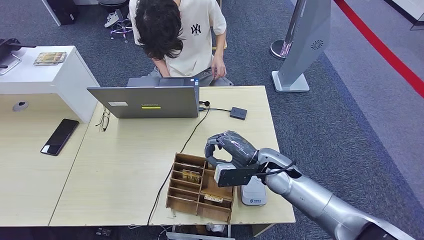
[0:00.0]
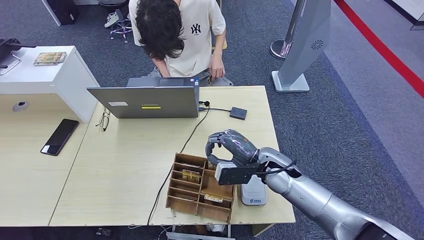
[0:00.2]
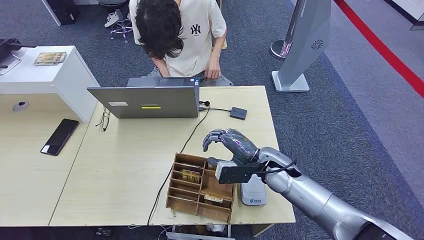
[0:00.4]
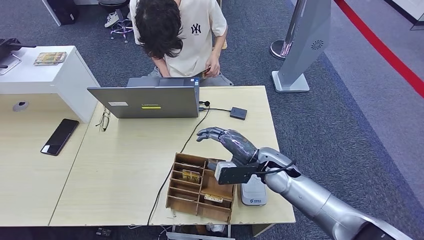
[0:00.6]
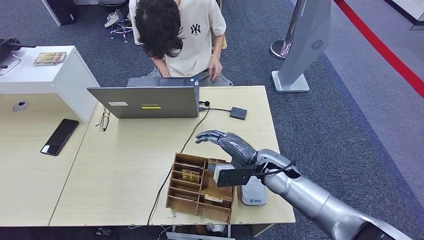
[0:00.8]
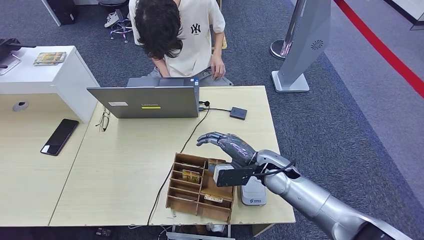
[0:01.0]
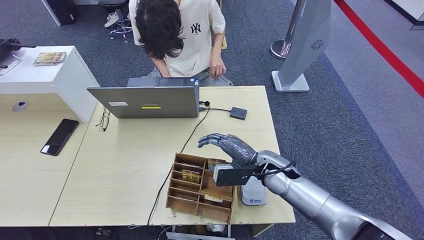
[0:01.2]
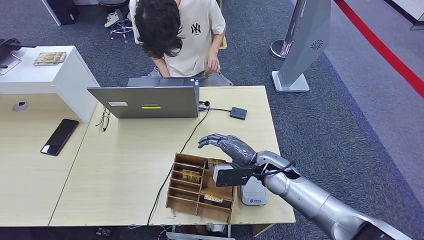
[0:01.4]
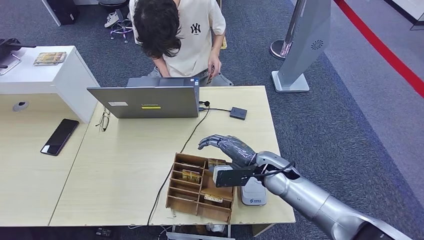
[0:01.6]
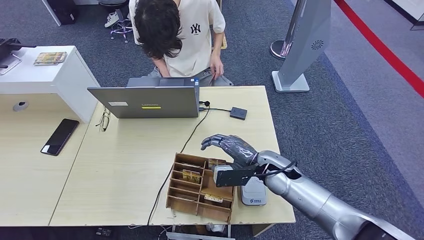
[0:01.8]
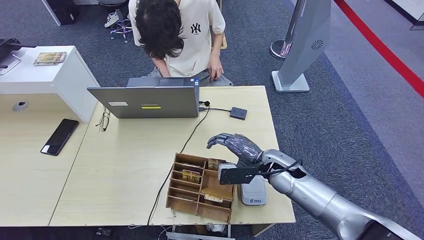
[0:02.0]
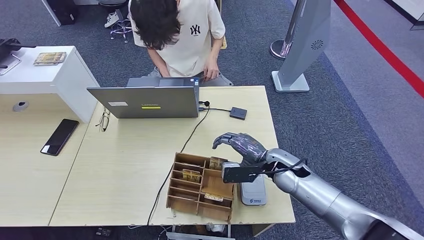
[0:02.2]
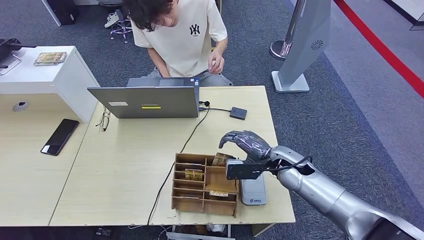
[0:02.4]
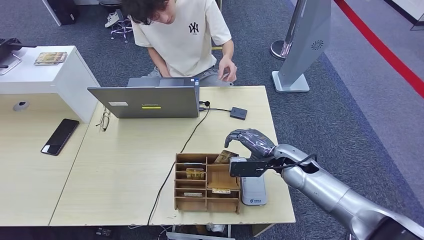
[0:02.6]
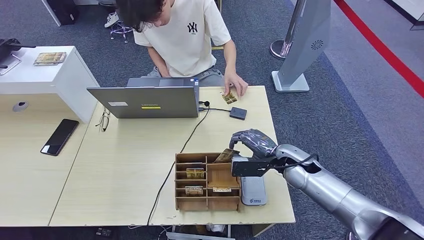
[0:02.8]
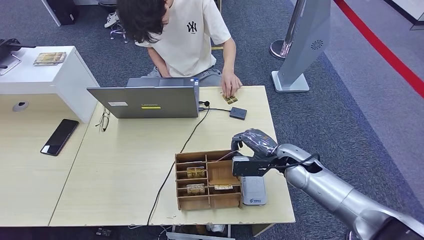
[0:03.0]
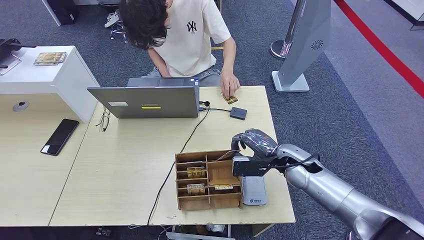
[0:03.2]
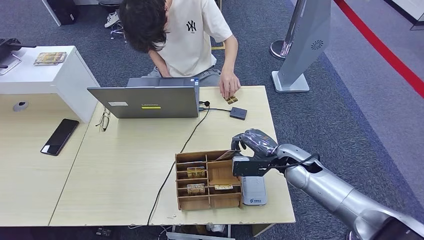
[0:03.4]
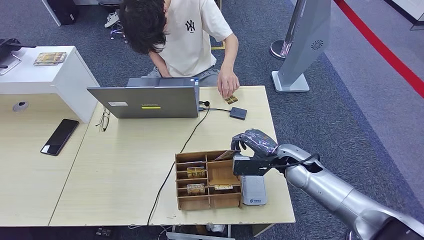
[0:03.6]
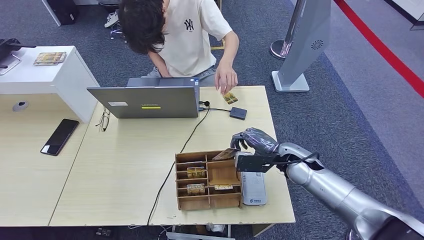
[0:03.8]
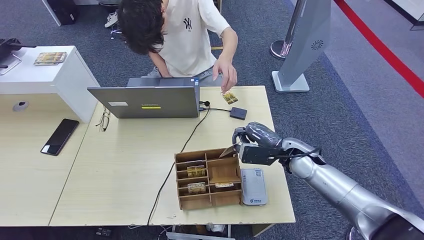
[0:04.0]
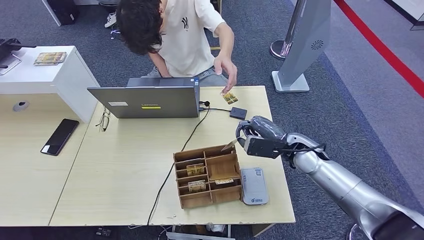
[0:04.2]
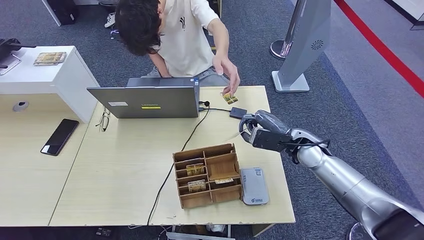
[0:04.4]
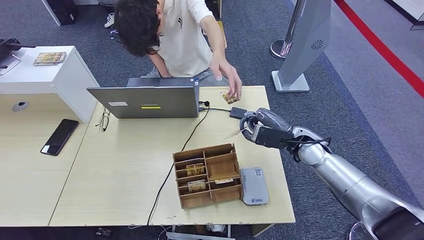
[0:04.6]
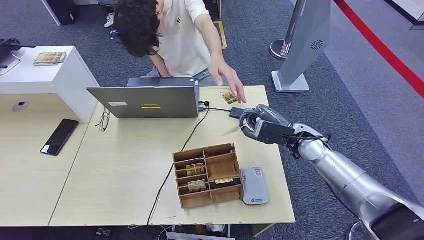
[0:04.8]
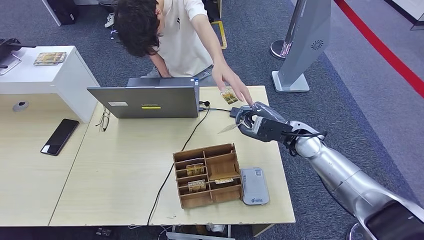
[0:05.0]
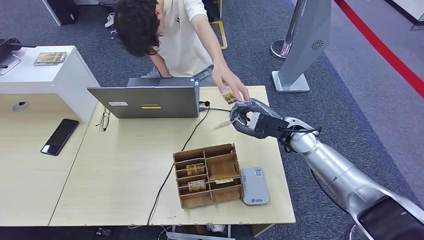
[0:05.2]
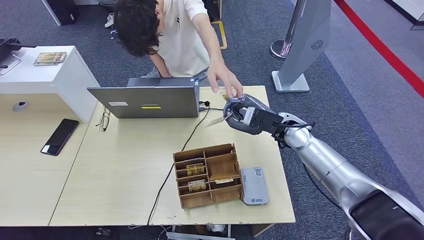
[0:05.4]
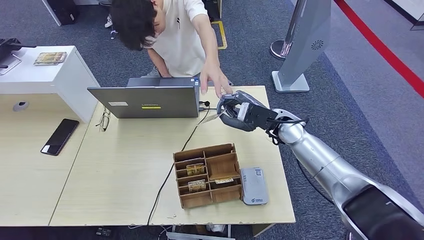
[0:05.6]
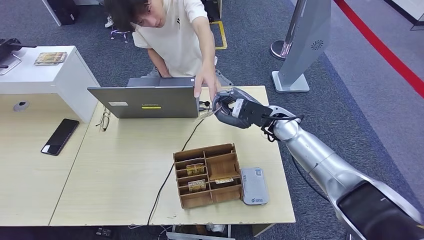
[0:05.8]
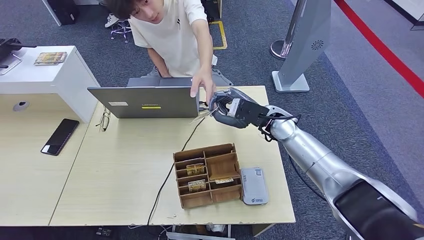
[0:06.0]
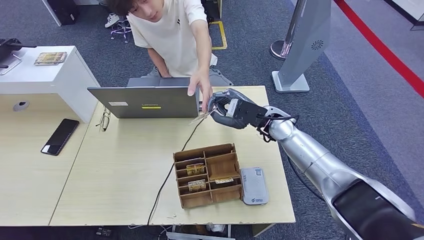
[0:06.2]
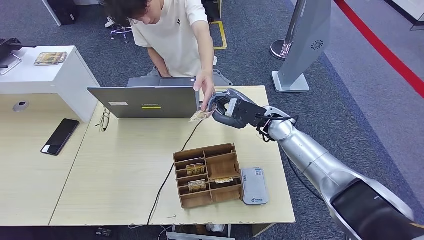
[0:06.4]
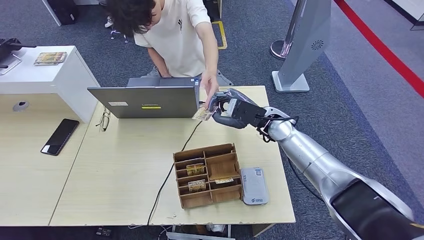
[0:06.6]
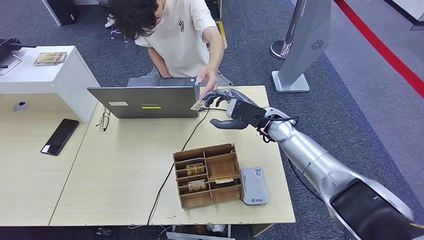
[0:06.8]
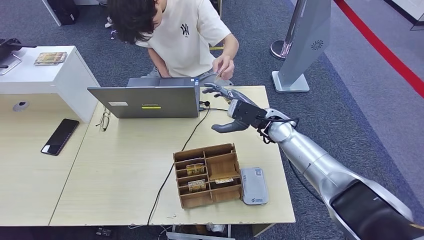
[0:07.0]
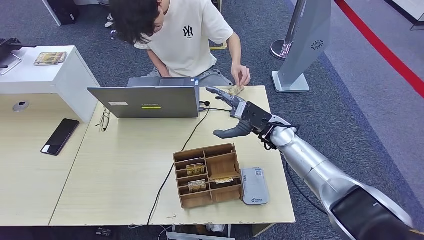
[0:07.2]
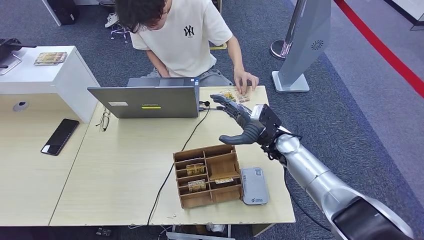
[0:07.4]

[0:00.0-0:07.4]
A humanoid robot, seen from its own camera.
Step, 0:02.4 to 0:05.0: Pick up the room key from the key card box.
Step, 0:05.2 to 0:07.4: Hand the room key to the person.
0:00.0 to 0:01.4: There are only small adjustments of the hands.
0:01.4 to 0:03.0: The right hand shifts approximately 5 cm to the right.
0:03.0 to 0:04.4: The right hand ends up about 5 cm from where it was.
0:04.4 to 0:06.0: The right hand heads to the left and forward, covering approximately 10 cm.
0:06.0 to 0:07.4: The right hand heads downward, covering roughly 5 cm.

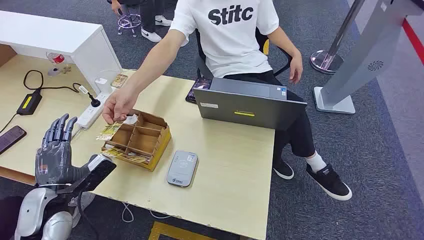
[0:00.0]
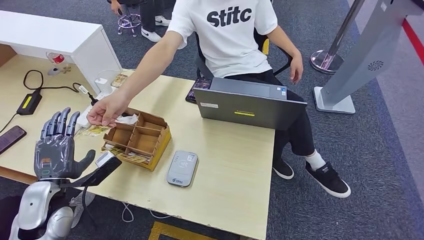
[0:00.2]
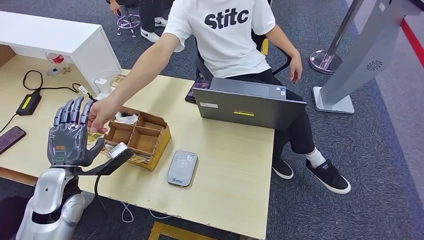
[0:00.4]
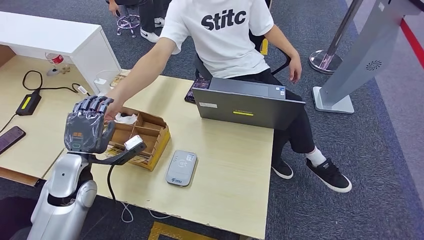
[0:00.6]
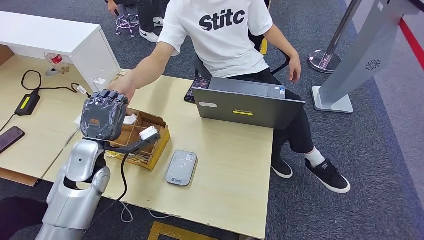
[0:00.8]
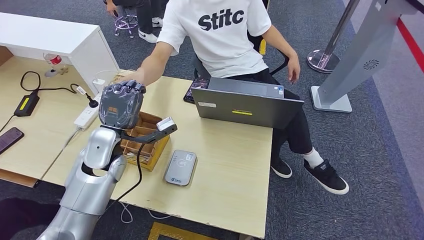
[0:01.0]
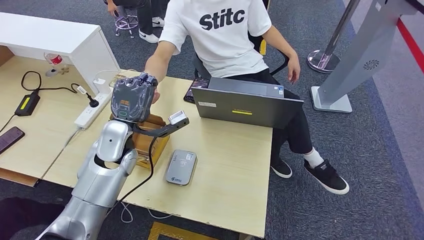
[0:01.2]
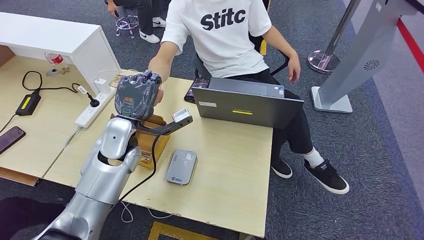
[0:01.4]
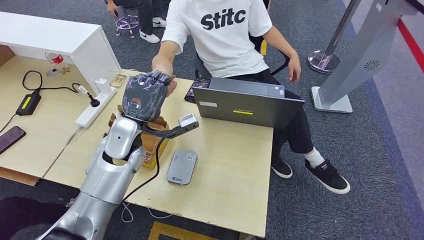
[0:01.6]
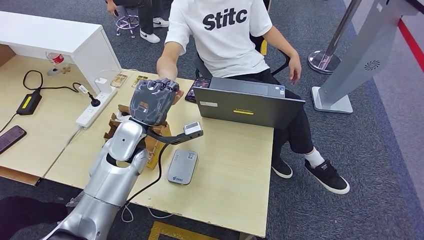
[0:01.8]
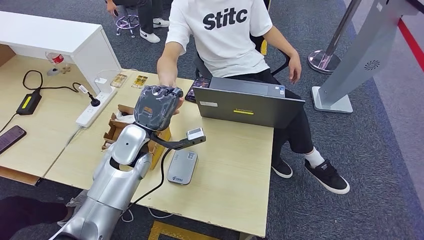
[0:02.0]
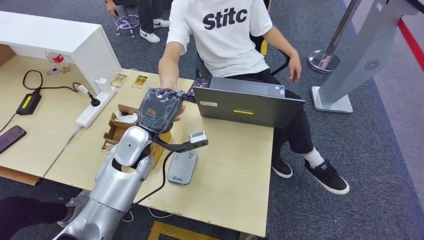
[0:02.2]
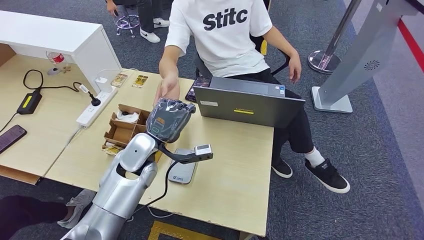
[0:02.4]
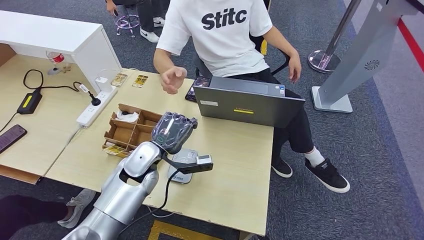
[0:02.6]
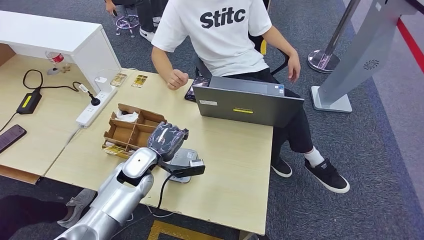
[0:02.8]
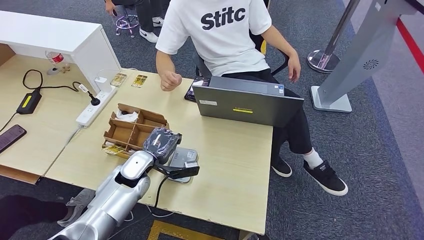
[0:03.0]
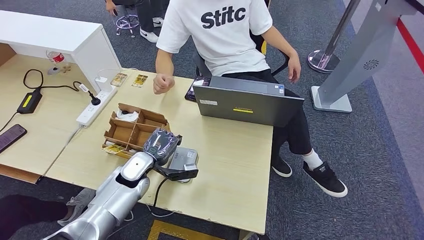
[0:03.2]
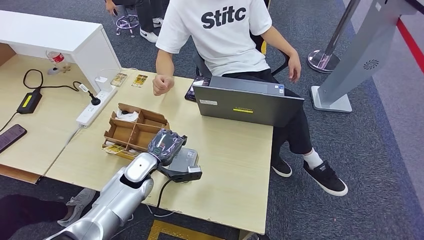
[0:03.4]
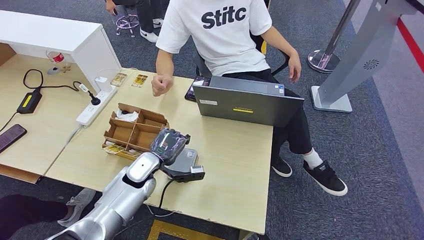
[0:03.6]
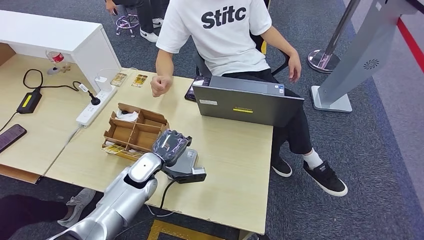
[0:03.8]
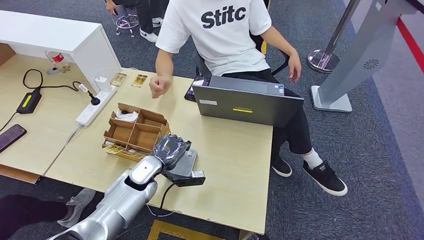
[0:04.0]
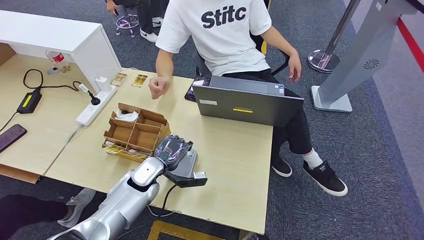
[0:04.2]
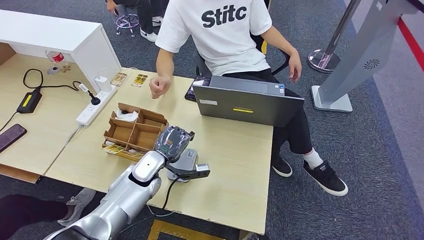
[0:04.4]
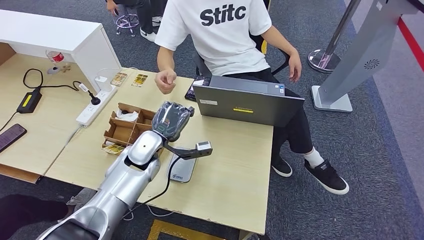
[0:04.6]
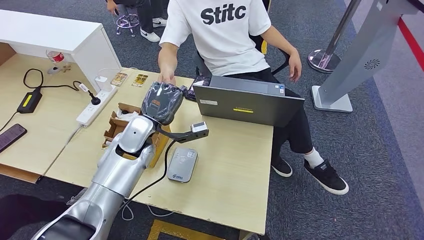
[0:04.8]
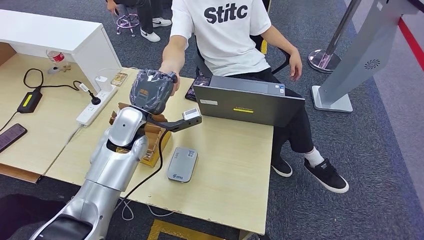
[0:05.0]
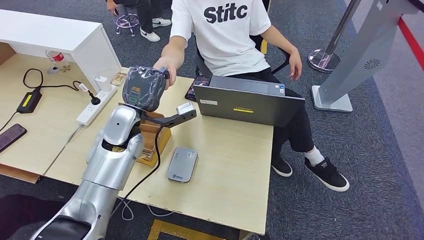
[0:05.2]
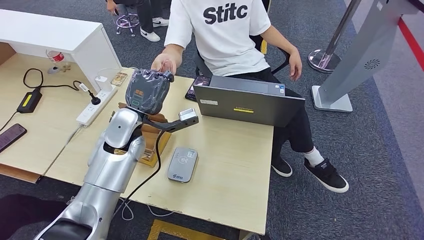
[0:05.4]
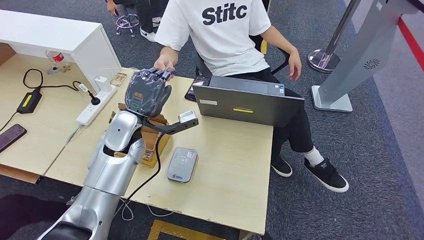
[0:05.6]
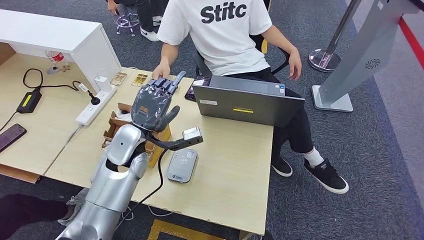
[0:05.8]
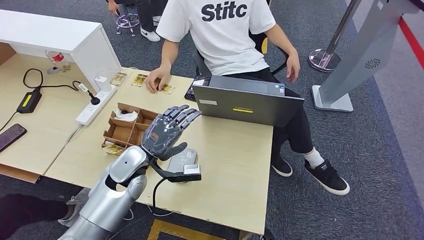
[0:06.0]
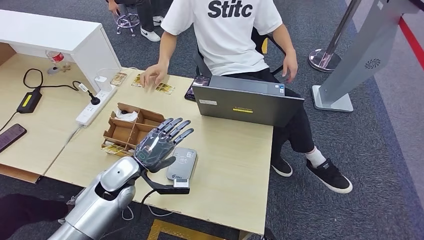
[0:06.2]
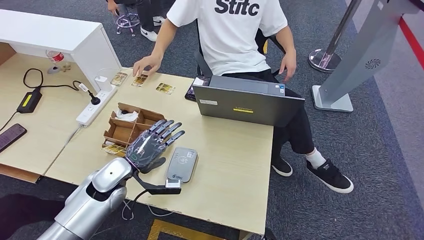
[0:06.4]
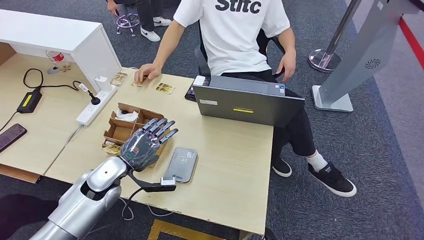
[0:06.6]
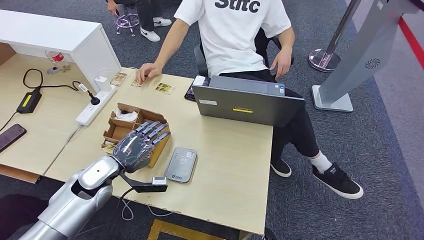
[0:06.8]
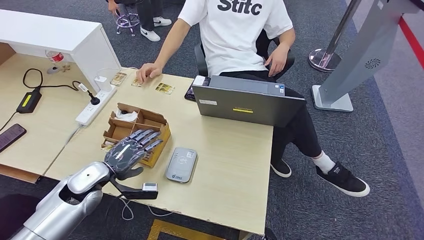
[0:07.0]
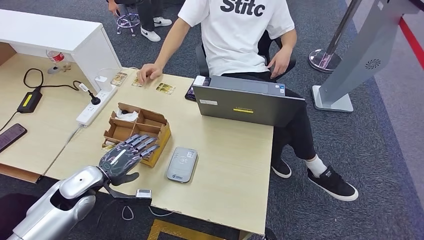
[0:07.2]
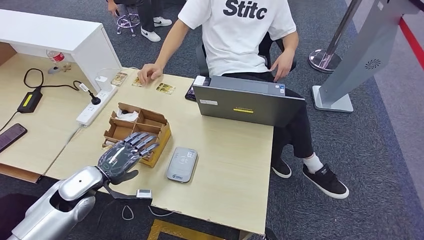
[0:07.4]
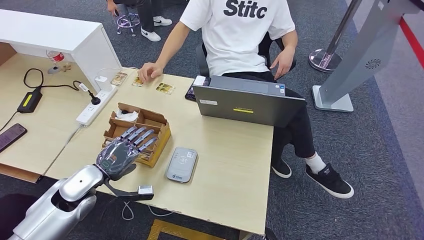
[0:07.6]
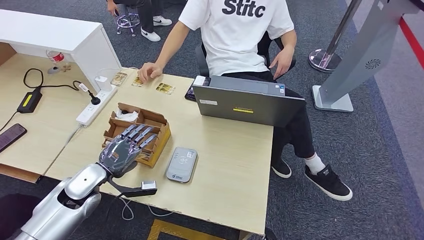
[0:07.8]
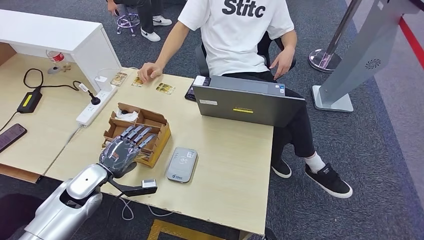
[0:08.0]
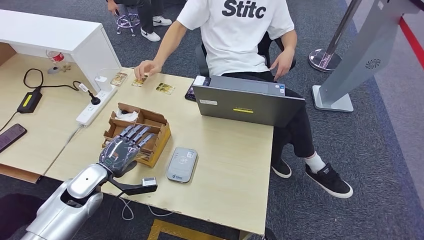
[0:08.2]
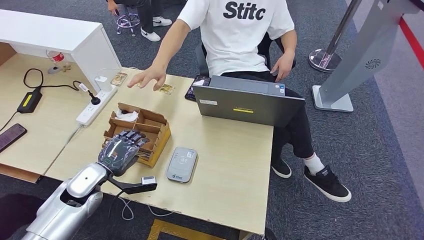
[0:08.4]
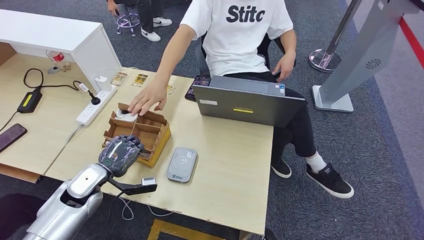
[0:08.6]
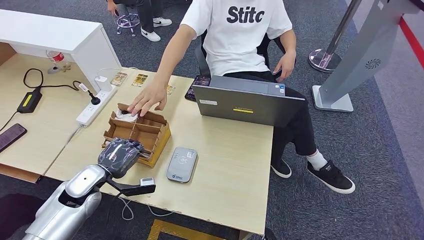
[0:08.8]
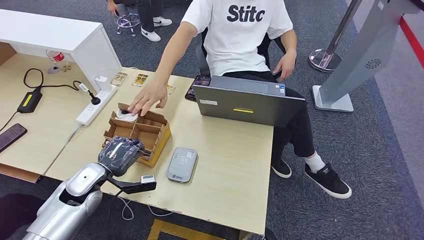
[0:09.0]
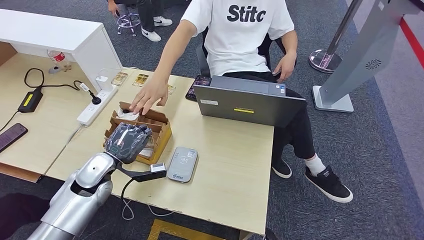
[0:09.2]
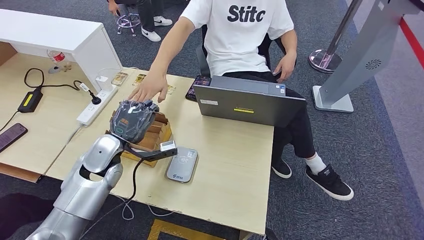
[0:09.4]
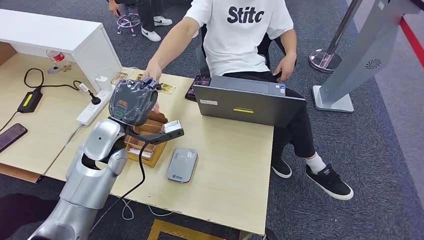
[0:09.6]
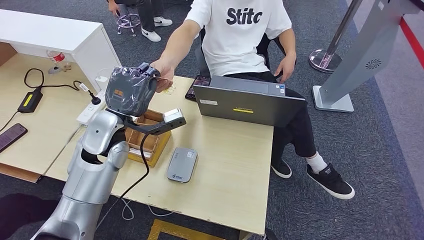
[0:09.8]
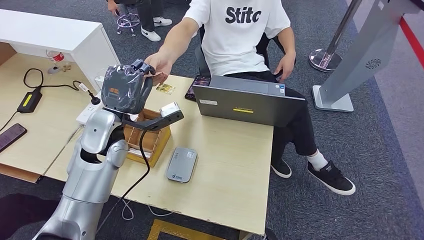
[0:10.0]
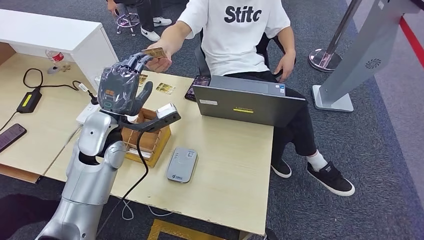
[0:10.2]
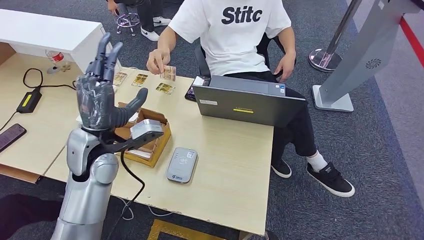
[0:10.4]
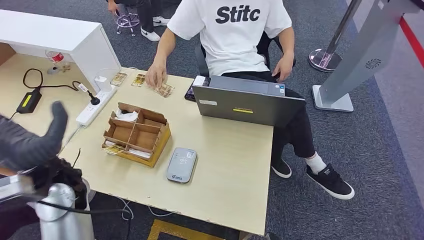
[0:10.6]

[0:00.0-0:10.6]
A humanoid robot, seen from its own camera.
Step, 0:00.0 to 0:02.2: Take the ID card from the person's hand.
Step, 0:02.4 to 0:04.6: Place the ID card on the card reader.
Step, 0:04.8 to 0:06.2: Hand the ID card to the person.
Step, 0:08.6 to 0:09.2: Pick up the room key from the key card box.
Step, 0:09.4 to 0:10.4: Hand the room key to the person.
0:01.6 to 0:03.0: The left hand moves downward, about 15 cm.
0:03.0 to 0:04.6: The left hand heads upward, covering approximately 5 cm.
0:04.6 to 0:06.0: The left hand reaches roughly 10 cm upward, then returns.
0:06.0 to 0:07.6: The left hand is displaced to the left by roughly 15 cm.
0:07.6 to 0:09.0: The hands stay close to where they were, moving slightly.
0:09.0 to 0:10.6: The left hand heads upward and to the right, covering some 15 cm.
